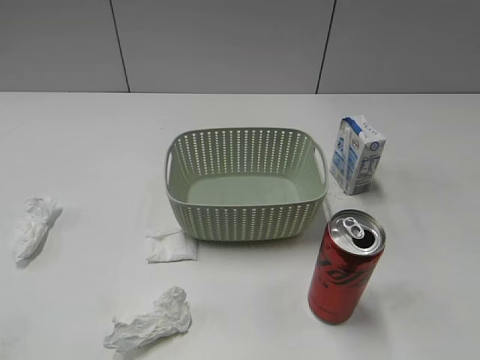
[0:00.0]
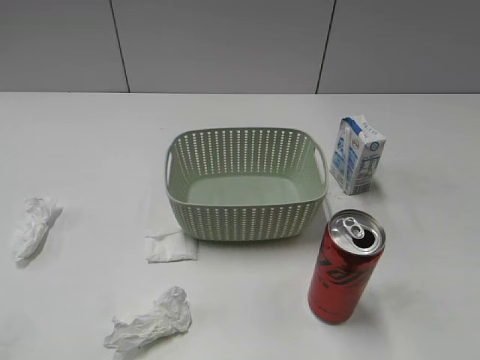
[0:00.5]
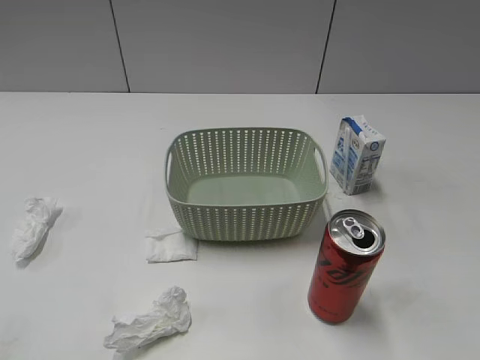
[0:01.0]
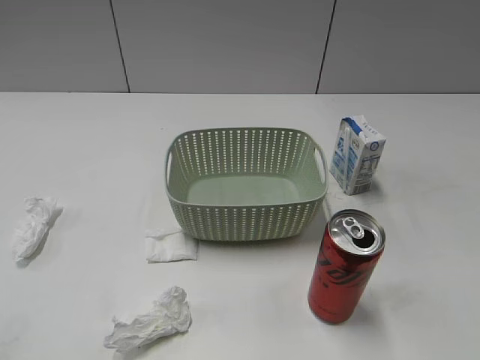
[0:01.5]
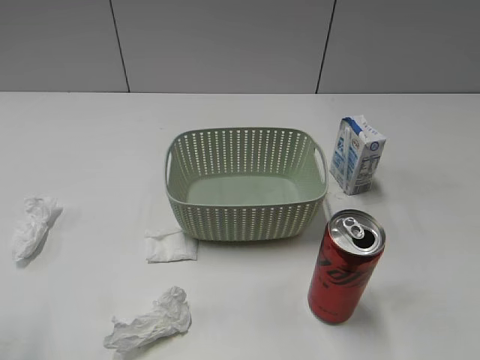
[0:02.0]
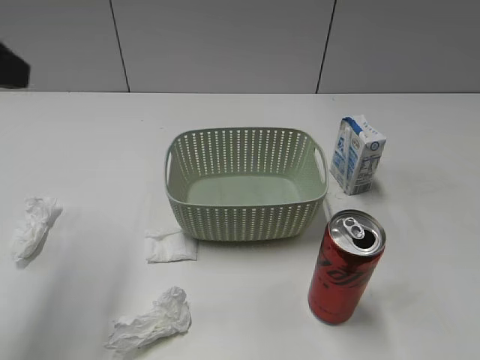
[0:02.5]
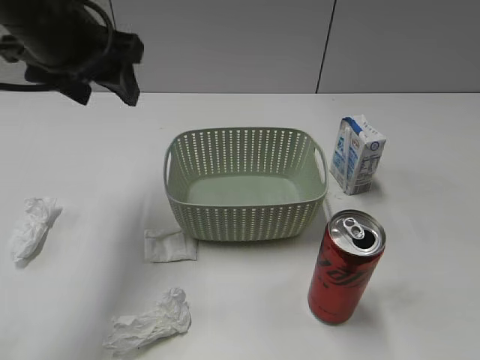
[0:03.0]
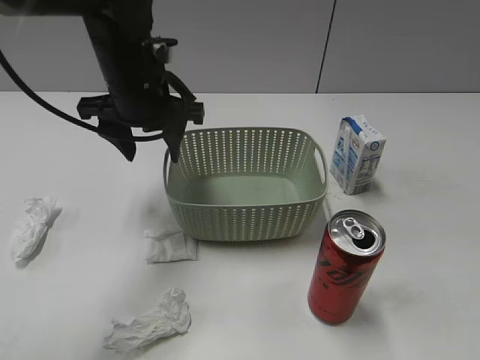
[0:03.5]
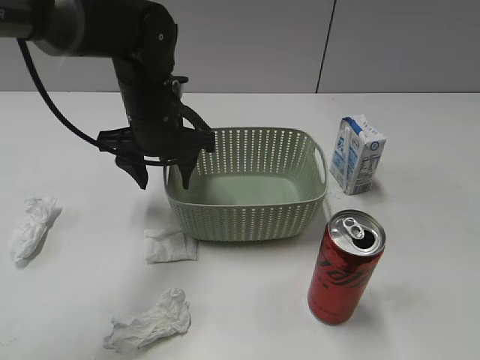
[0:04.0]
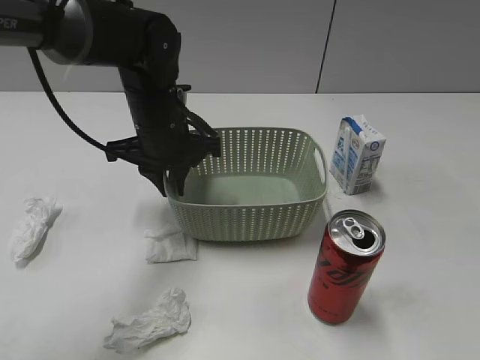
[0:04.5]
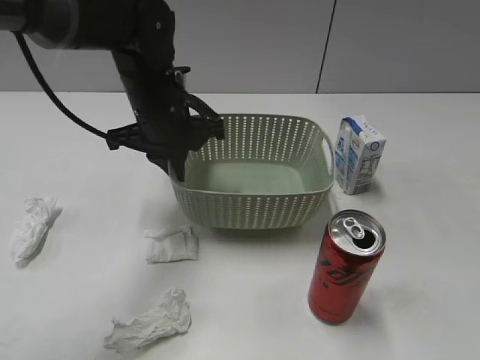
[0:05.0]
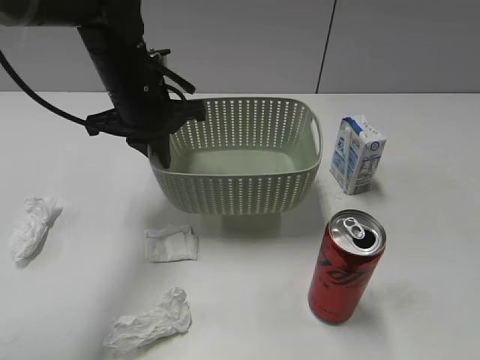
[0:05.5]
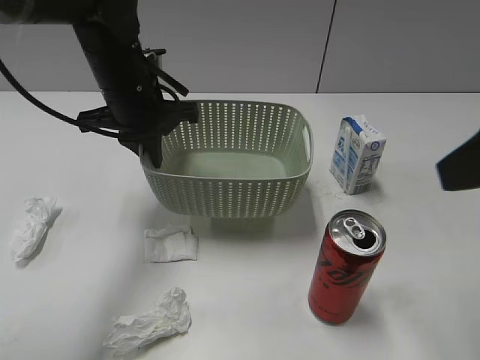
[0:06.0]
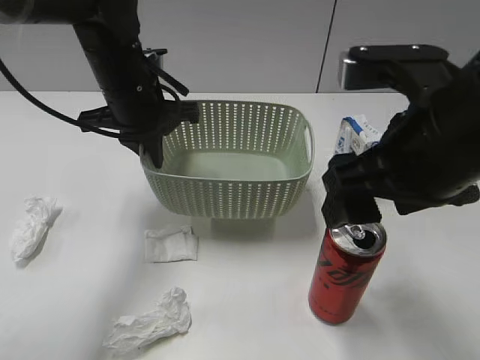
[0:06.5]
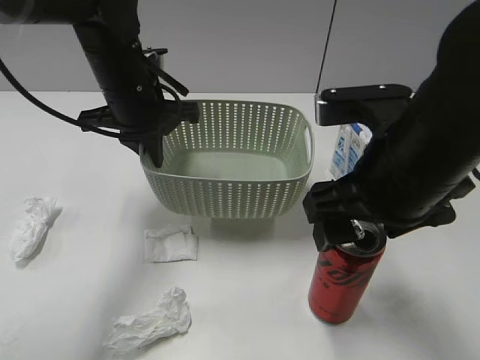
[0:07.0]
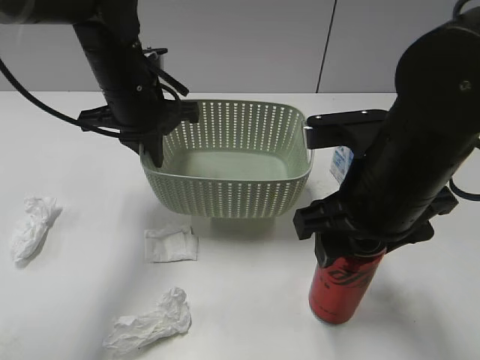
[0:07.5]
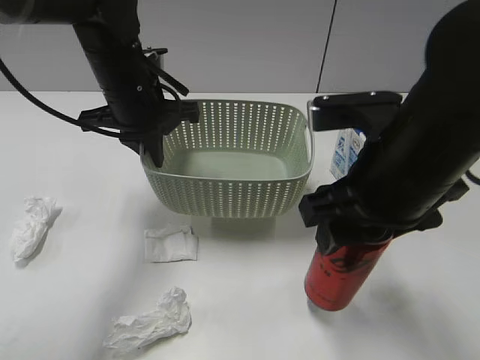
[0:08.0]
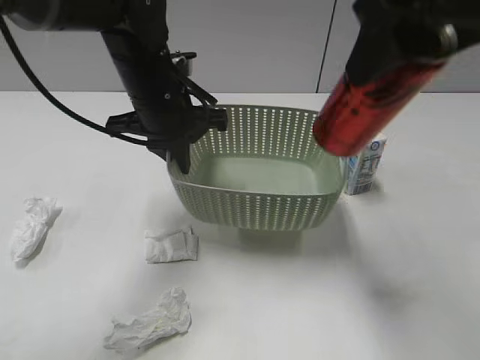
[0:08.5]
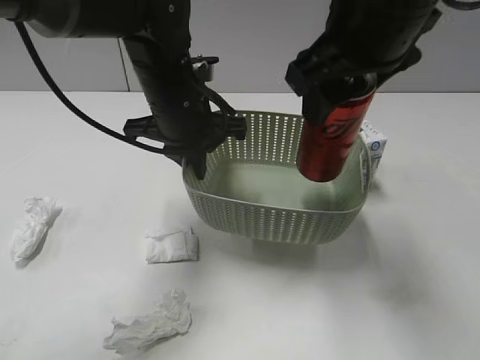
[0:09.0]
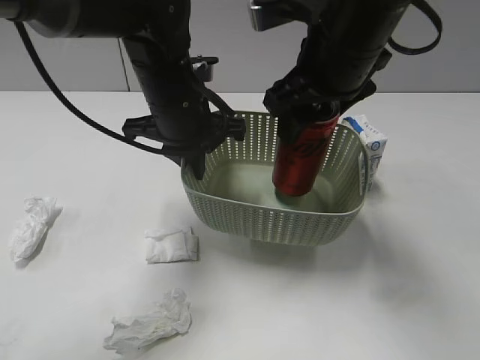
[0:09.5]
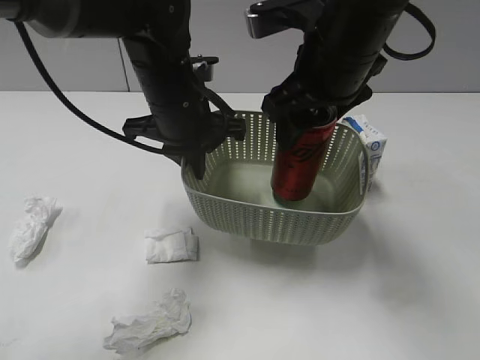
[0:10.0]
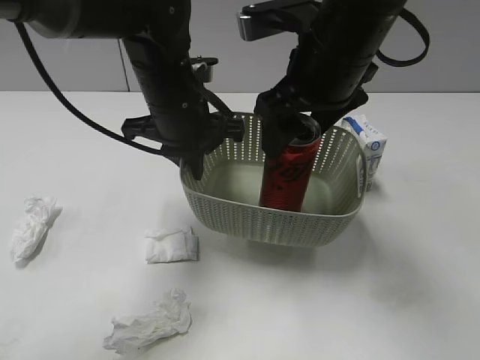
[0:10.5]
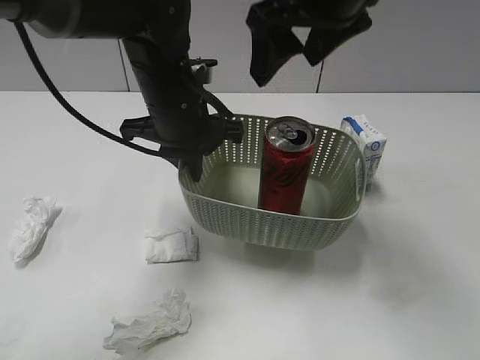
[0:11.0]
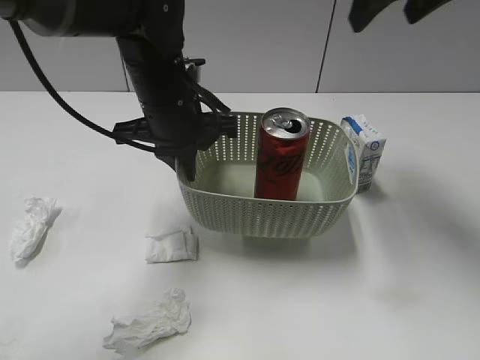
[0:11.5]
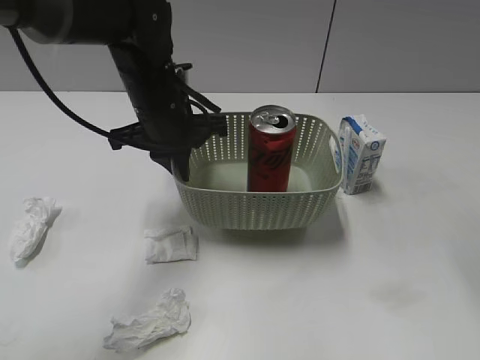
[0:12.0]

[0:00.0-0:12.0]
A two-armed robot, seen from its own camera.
Step, 0:02.5 to 0:04.5: Grasp the basket with left gripper.
Step, 0:05.0 to 0:05.5: Lift the basket with left gripper.
Step, 0:06.0 to 0:07.5: Grasp the cola can with right gripper.
Step, 0:08.0 to 0:10.5: Place the cola can in the basket with right gripper.
0:02.0 to 0:04.0: The left gripper moves forward, to the right and downward, some 35 cm.
0:04.0 to 0:06.0: The left gripper closes its fingers, while the right gripper shifts roughly 20 cm forward, to the left and upward.
0:06.0 to 0:08.0: The right gripper heads downward and to the left, covering approximately 15 cm, and opens and closes again.
0:08.0 to 0:10.0: The right gripper goes approximately 10 cm forward, and moves approximately 15 cm upward and comes back; the left gripper travels to the right by about 5 cm.
0:10.0 to 0:12.0: The right gripper is displaced to the right, upward and backward by approximately 20 cm, and opens.

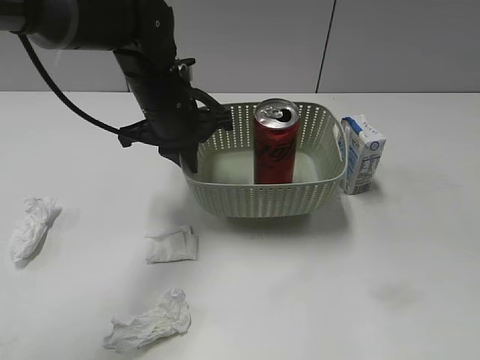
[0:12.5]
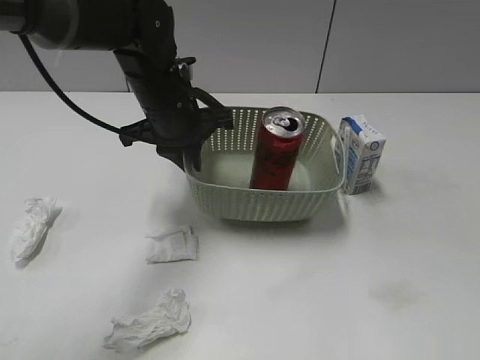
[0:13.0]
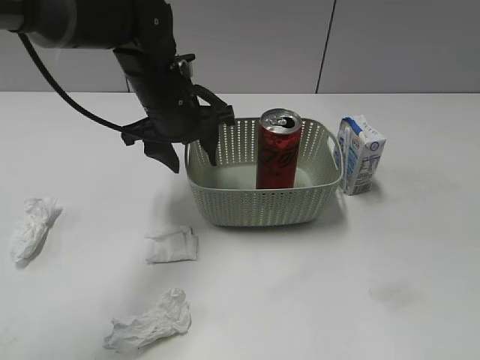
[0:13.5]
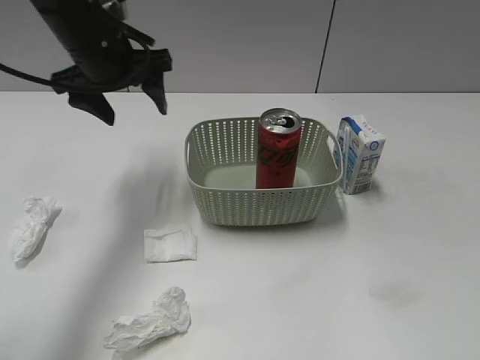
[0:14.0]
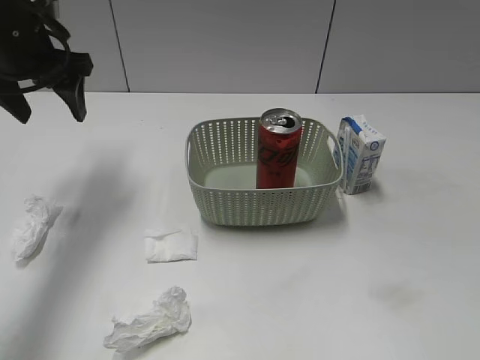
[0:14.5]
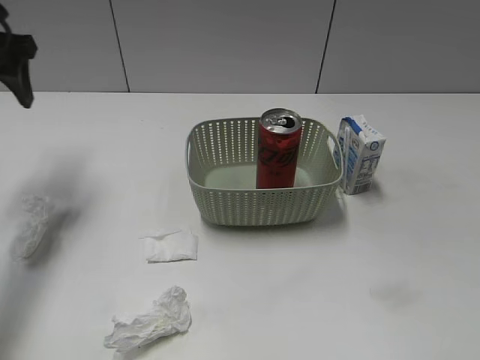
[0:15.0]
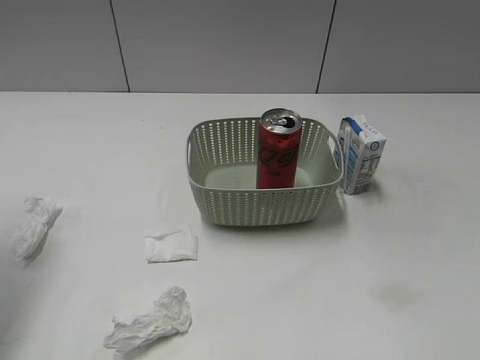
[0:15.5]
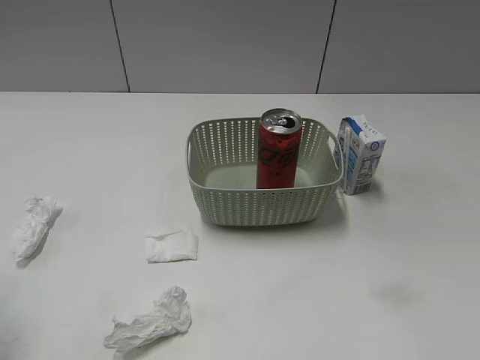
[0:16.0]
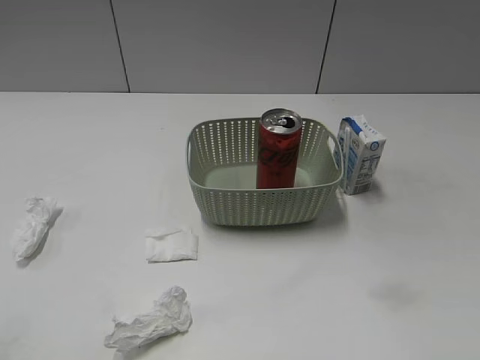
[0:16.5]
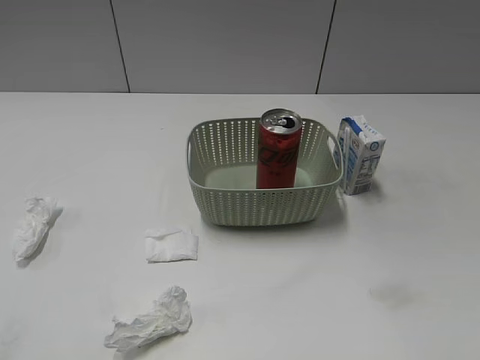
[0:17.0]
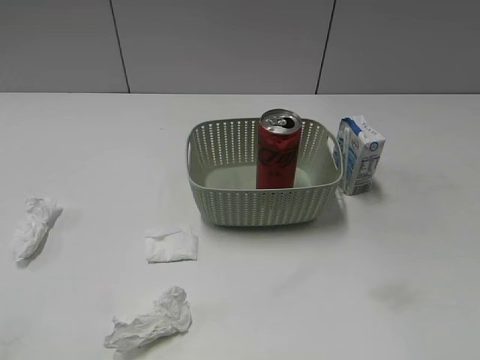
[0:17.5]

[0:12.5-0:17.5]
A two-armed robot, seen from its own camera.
0:12.5 to 0:15.0: The right gripper is displaced downward and backward by about 10 cm; the left gripper moves to the left and upward, some 25 cm, and opens up.
0:15.0 to 0:17.5: The left gripper is displaced backward by approximately 40 cm.
